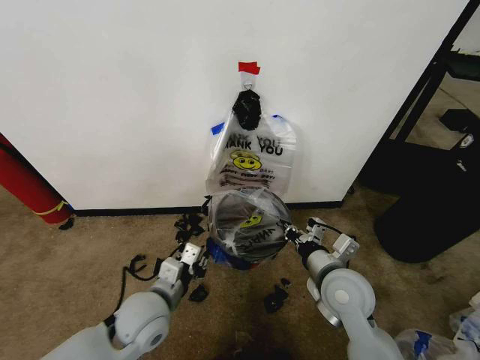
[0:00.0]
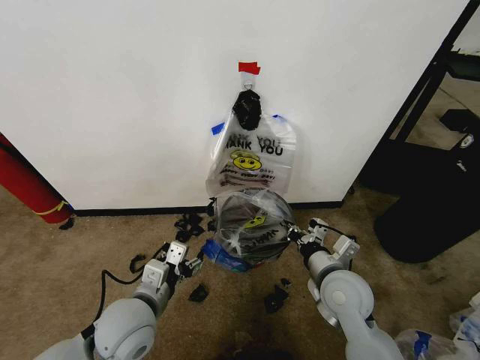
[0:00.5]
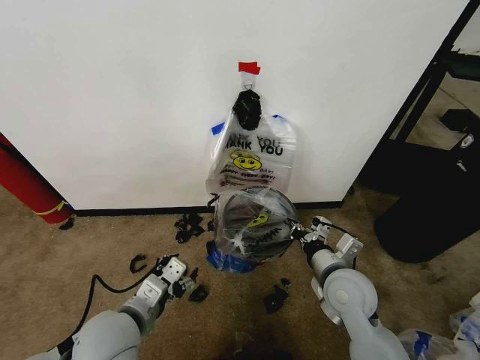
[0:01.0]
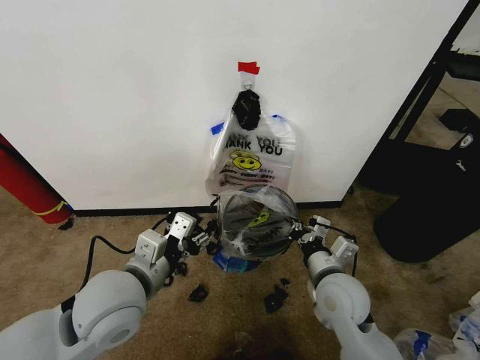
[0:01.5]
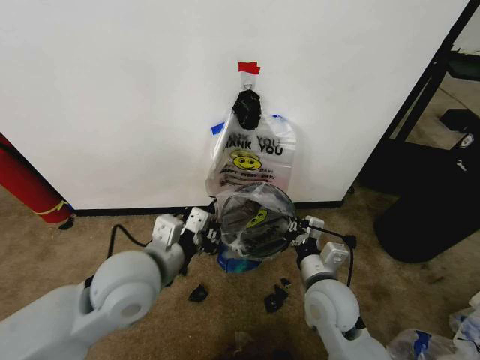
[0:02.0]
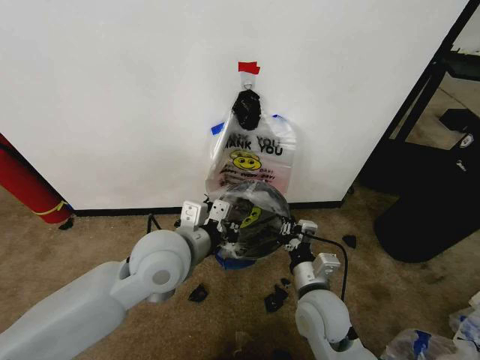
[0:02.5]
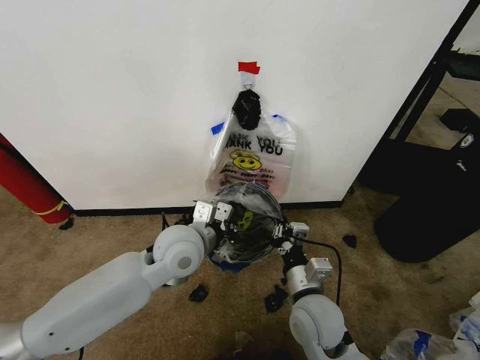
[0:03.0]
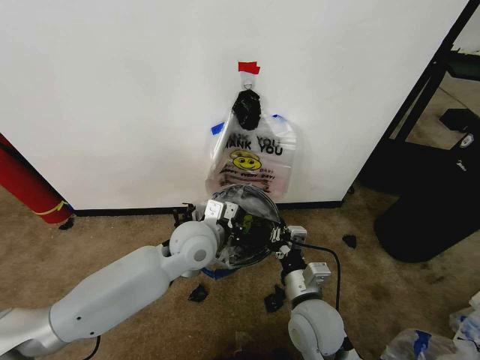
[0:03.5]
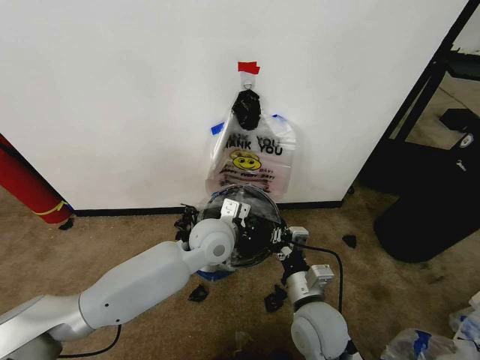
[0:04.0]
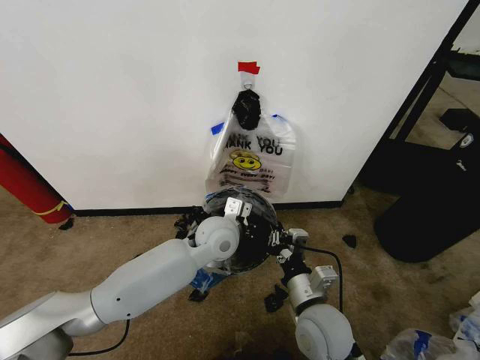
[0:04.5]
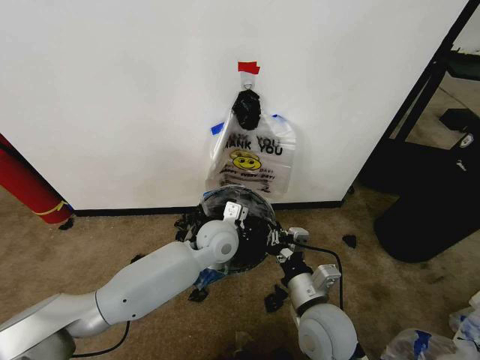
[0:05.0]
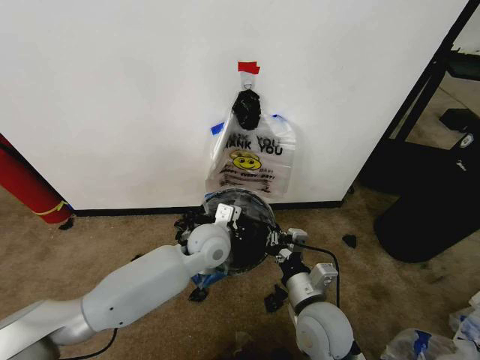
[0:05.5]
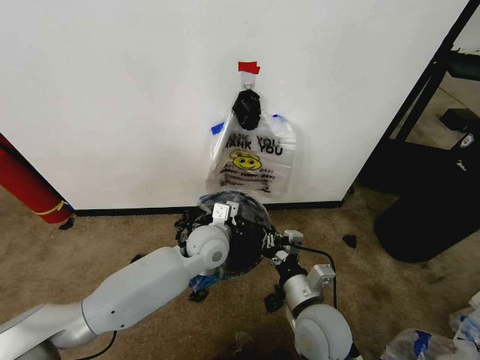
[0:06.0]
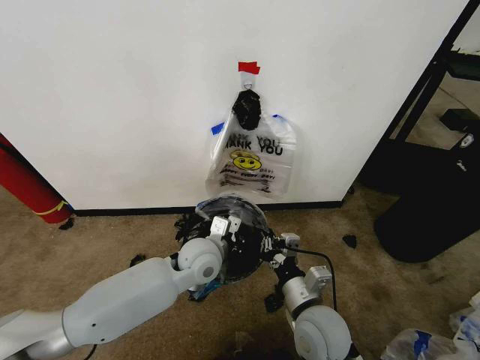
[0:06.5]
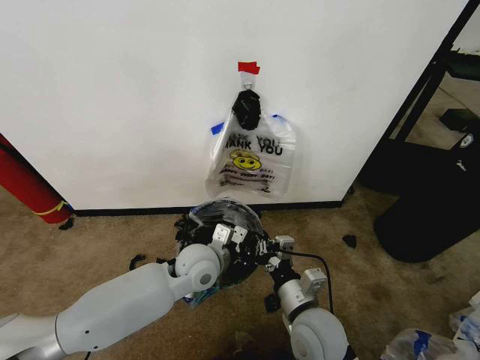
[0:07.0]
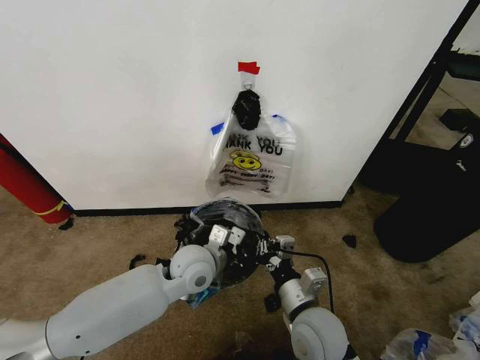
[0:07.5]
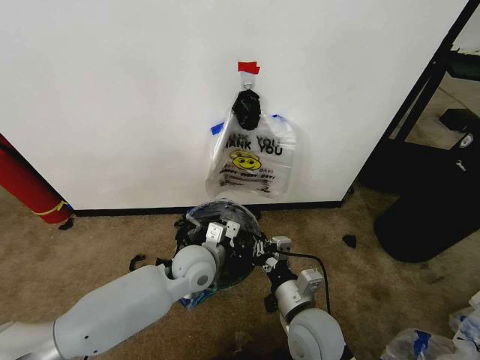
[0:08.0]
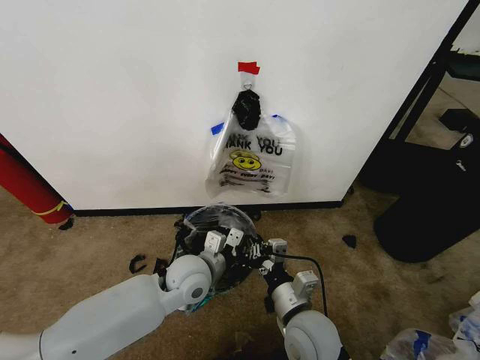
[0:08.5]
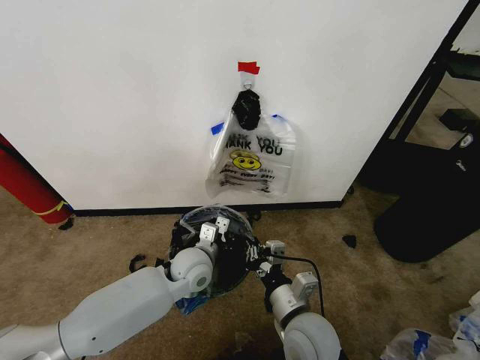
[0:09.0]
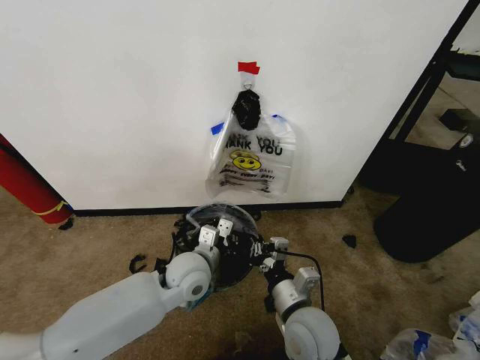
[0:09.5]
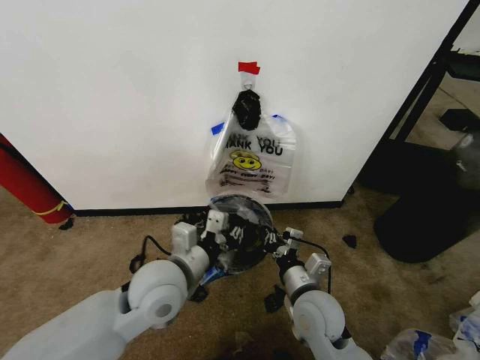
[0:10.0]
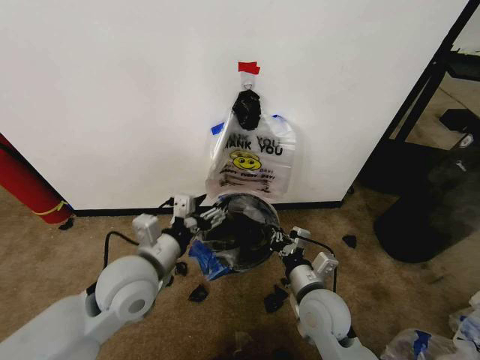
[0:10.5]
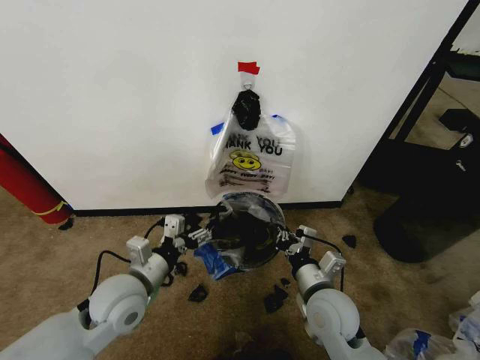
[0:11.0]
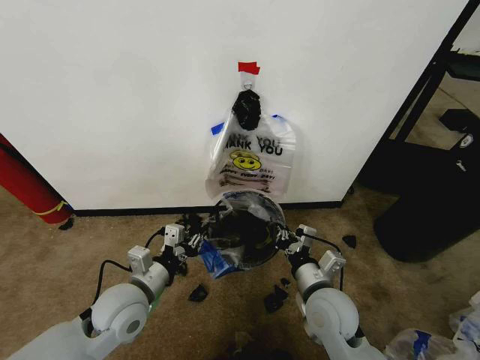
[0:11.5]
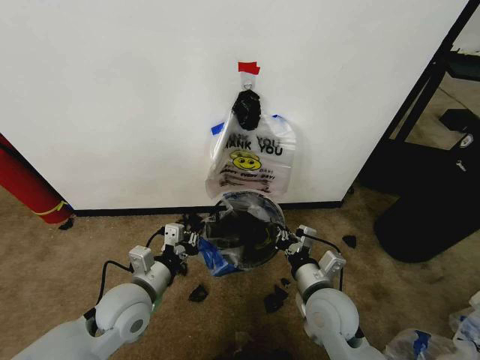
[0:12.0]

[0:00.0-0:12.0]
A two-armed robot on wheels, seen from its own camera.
Task of the whole recording: Pick up the garbage bag from the wall and place it over the trash bin.
0:00.0 to 0:02.0: The left gripper goes approximately 15 cm upward, and opens and closes again.
0:02.0 to 0:04.0: The left gripper travels forward, to the right and downward by about 20 cm. Meanwhile the right gripper moves about 5 cm.
0:04.0 to 0:06.0: There are only small adjustments of the grippers.
0:06.0 to 0:08.0: The left gripper ends up about 5 cm from where it was.
0:08.0 to 0:10.0: The left gripper heads backward and upward, covering roughly 10 cm.
0:10.0 to 0:12.0: The left gripper moves to the left and downward, about 10 cm, and opens, then closes again.

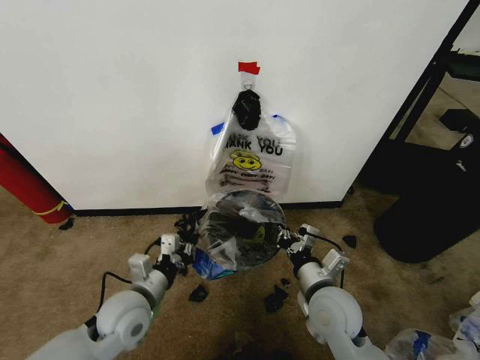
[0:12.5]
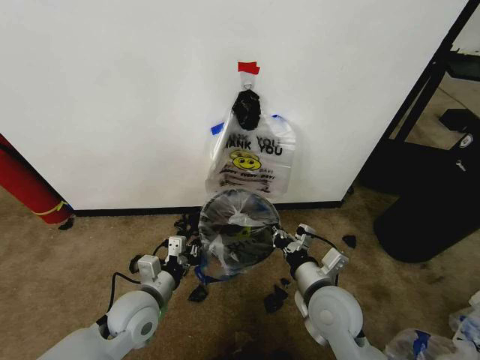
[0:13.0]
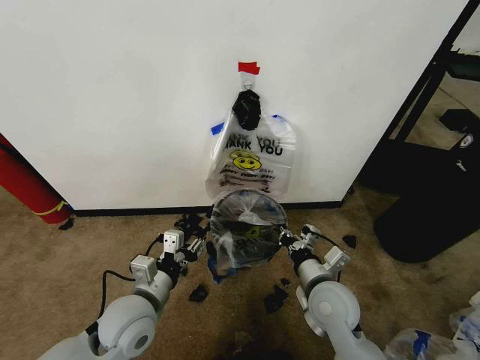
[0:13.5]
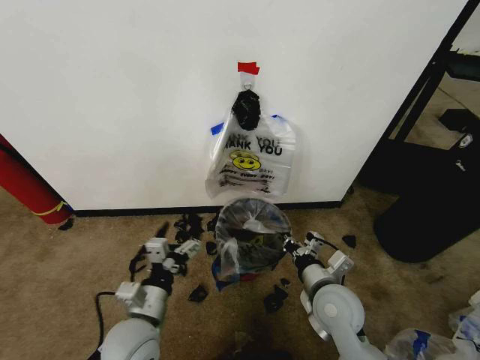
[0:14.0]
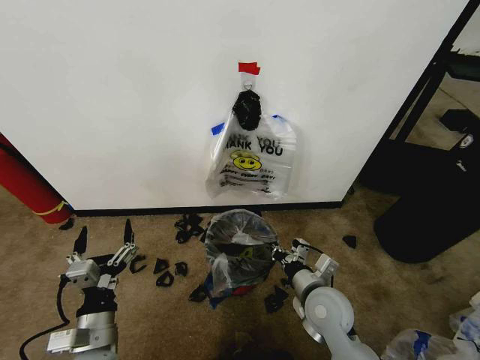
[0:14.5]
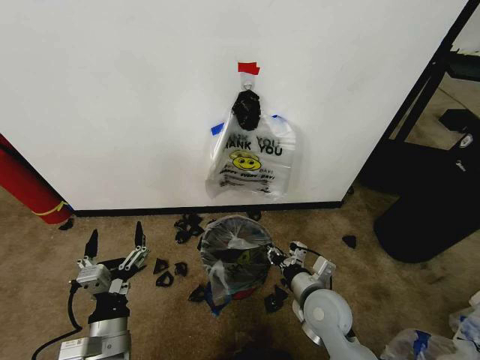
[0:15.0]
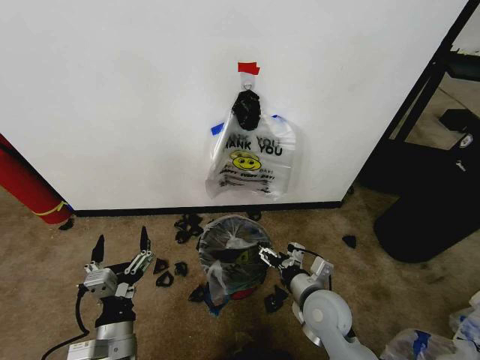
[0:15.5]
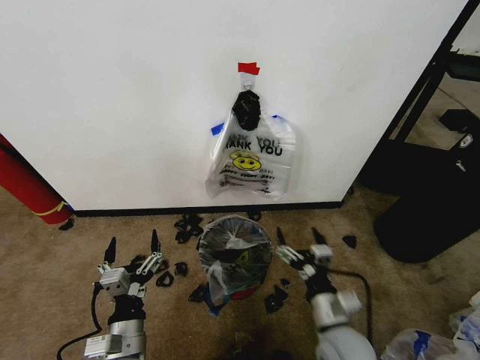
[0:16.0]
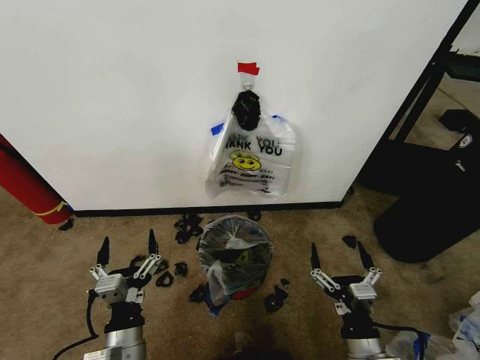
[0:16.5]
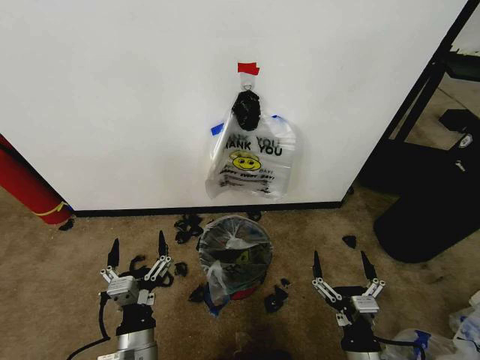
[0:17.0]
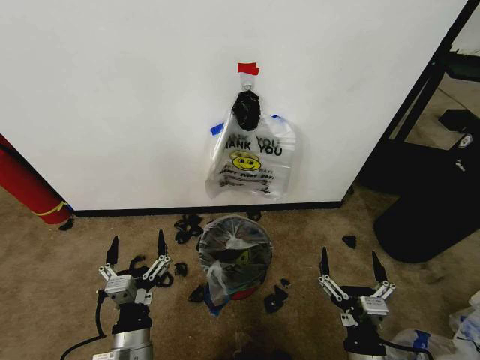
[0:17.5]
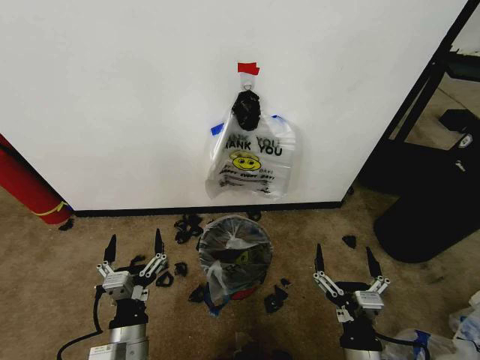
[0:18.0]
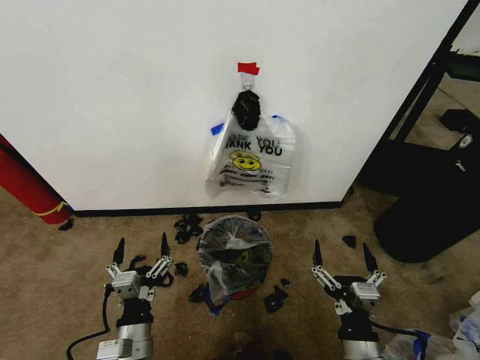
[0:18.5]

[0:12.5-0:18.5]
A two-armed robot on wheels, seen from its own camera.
Task of the whole recording: Pick up the garbage bag from the wall and place it over the trash bin.
0:12.5 to 0:14.5: The left gripper travels backward by some 10 cm, and opens its fingers.
0:14.5 to 0:16.5: The right gripper travels backward by some 15 cm, and opens, while the left gripper heads to the right, covering some 5 cm.
0:16.5 to 0:18.5: The grippers move only a little.
